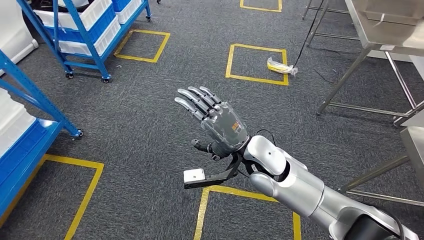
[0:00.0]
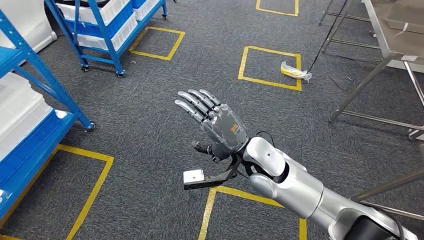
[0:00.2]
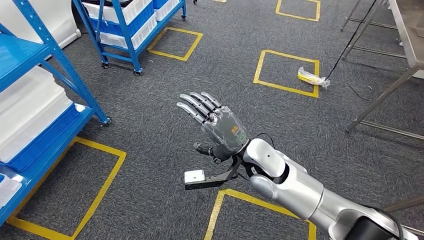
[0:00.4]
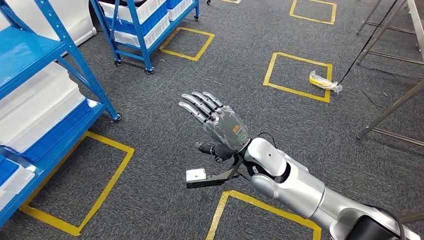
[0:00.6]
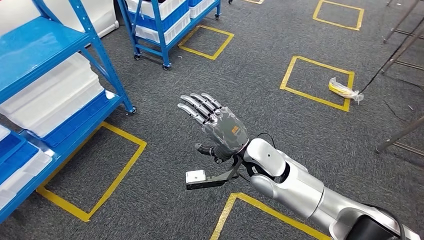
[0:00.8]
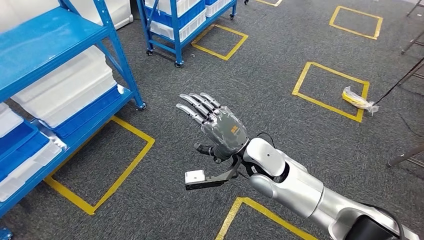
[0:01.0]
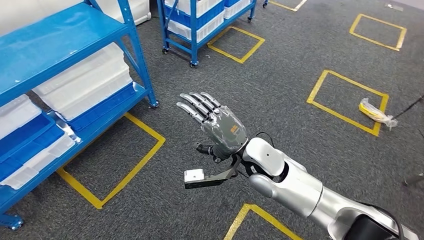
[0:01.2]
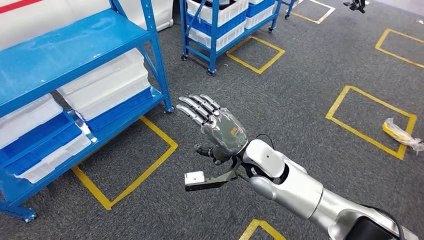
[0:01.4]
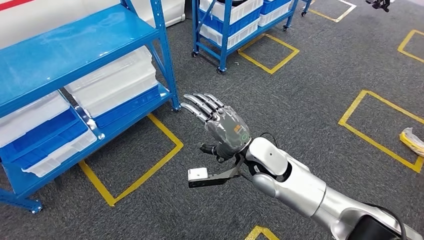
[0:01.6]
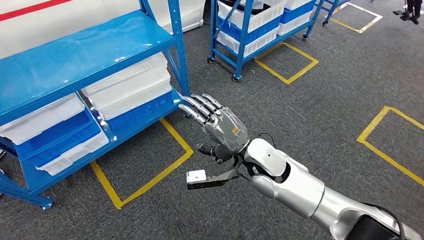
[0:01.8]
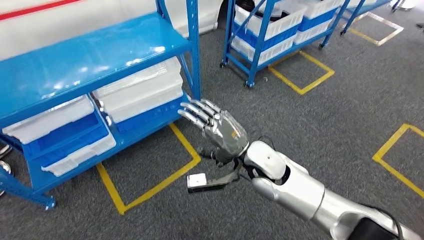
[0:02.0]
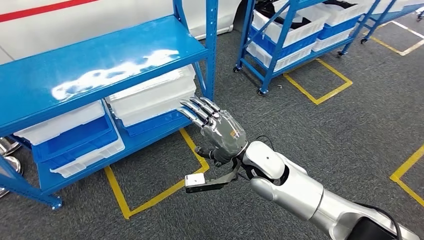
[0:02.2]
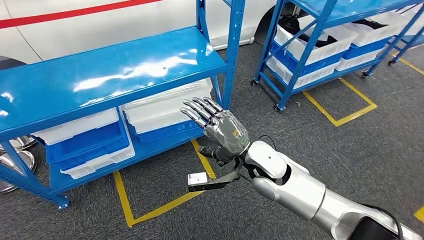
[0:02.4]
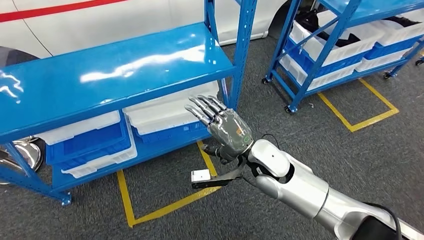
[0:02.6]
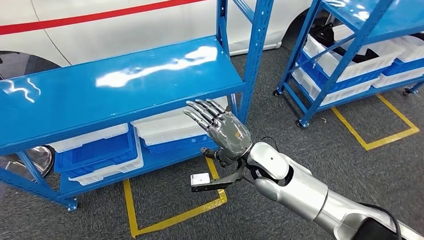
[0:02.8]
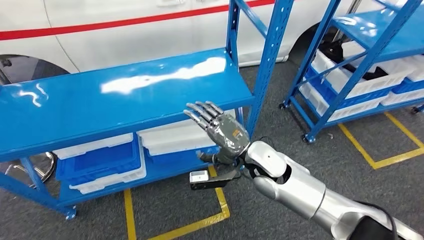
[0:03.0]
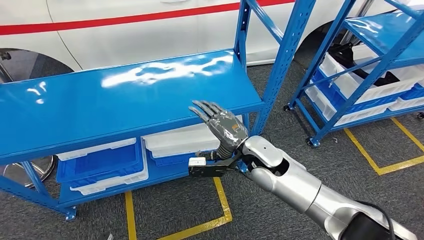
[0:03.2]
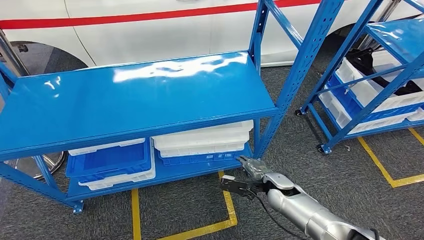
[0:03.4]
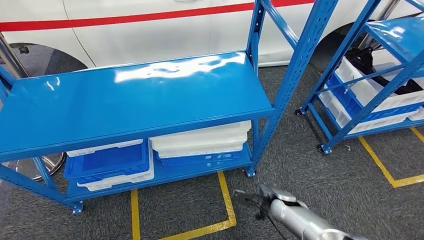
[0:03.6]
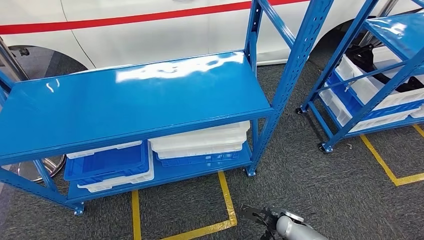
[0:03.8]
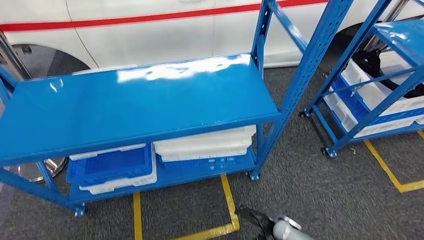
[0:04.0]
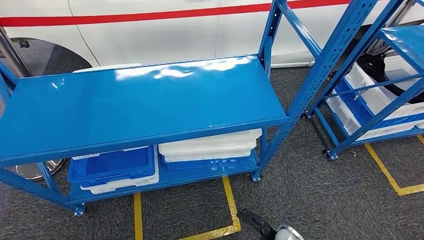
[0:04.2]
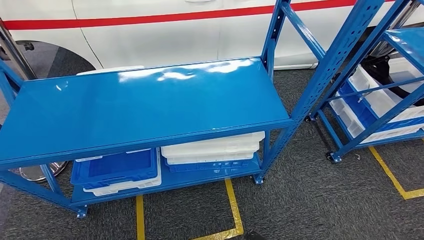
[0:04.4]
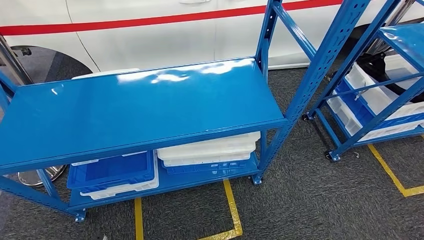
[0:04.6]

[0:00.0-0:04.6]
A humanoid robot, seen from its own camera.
Step, 0:00.0 to 0:04.6: Move to the initial position of the shelf.

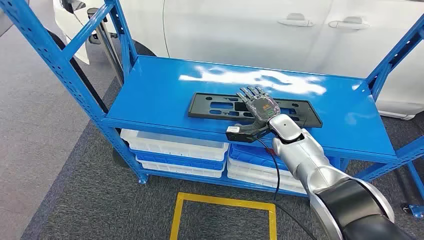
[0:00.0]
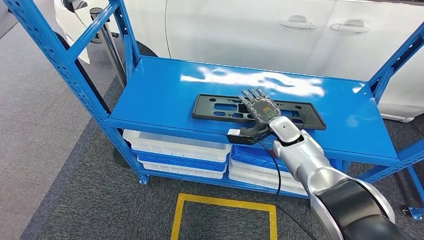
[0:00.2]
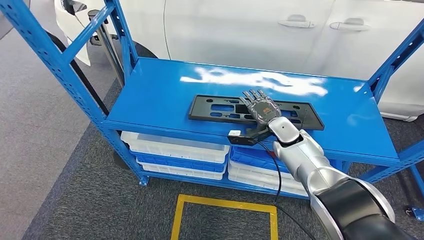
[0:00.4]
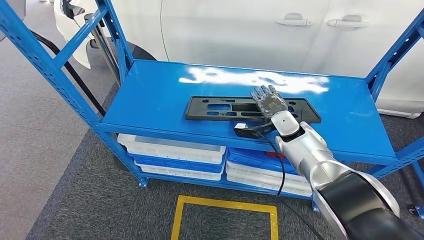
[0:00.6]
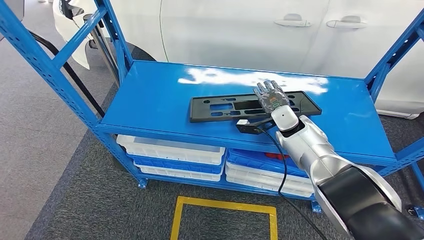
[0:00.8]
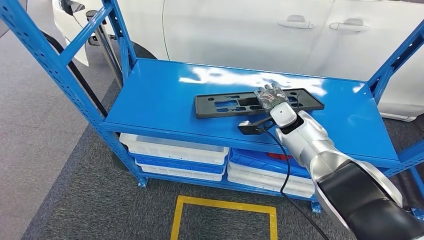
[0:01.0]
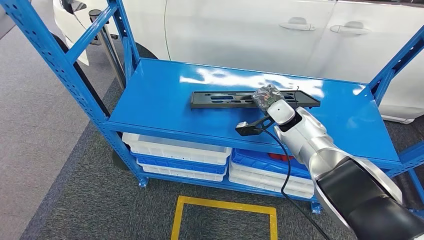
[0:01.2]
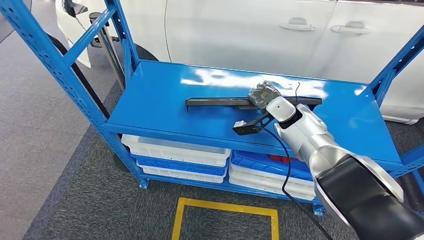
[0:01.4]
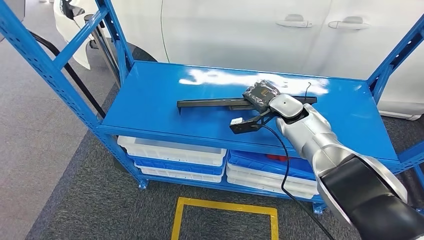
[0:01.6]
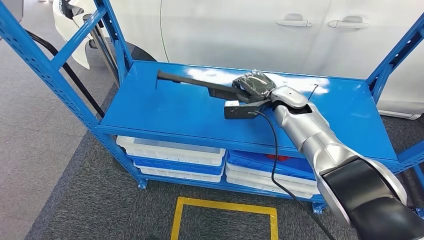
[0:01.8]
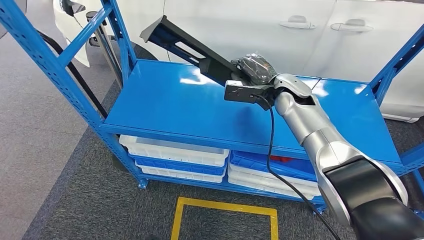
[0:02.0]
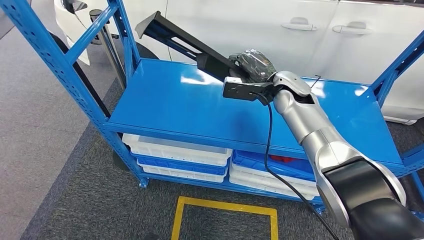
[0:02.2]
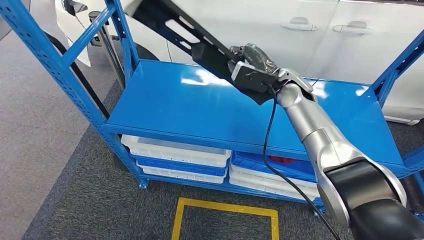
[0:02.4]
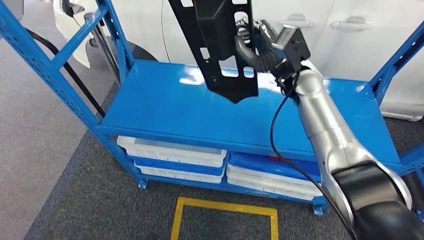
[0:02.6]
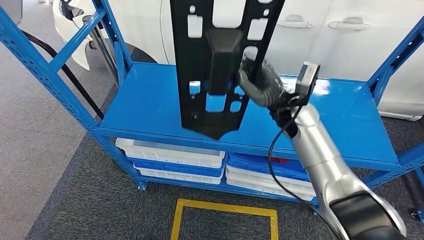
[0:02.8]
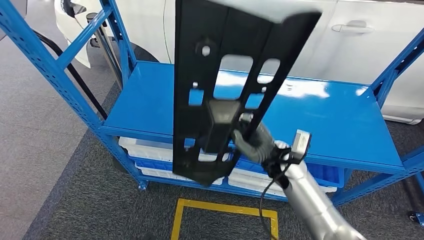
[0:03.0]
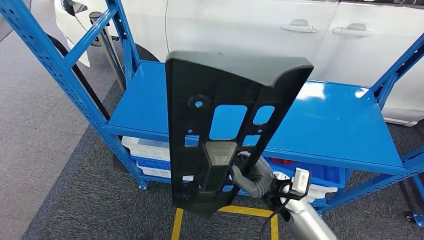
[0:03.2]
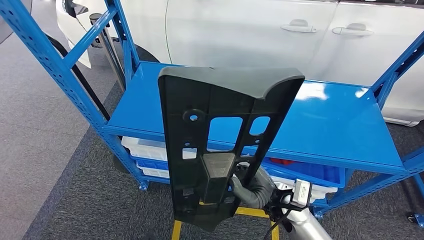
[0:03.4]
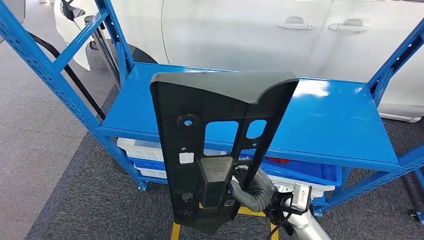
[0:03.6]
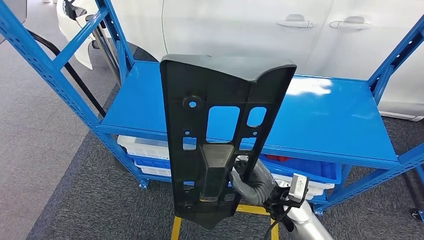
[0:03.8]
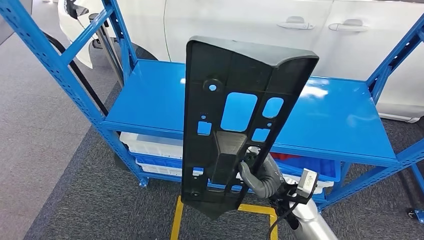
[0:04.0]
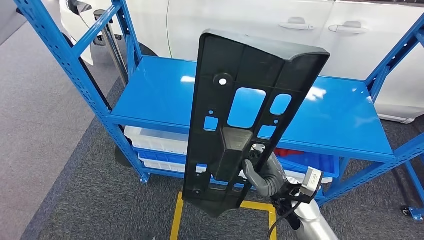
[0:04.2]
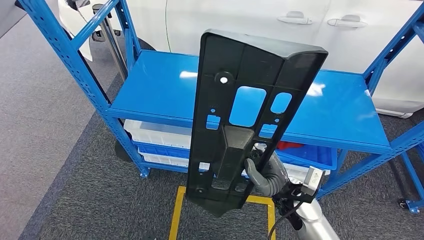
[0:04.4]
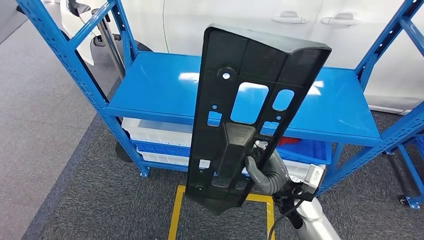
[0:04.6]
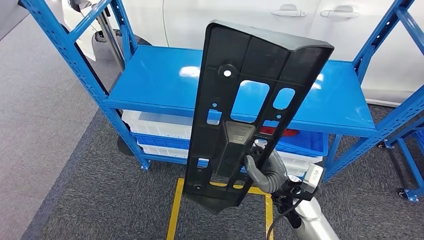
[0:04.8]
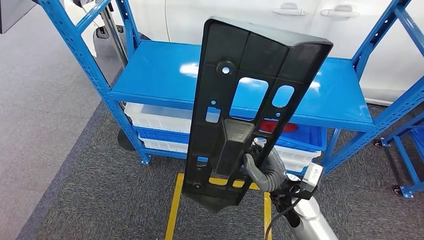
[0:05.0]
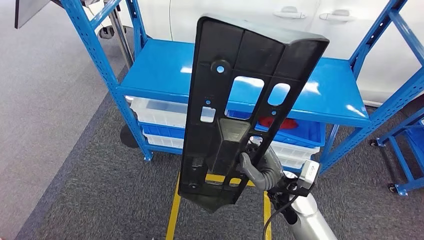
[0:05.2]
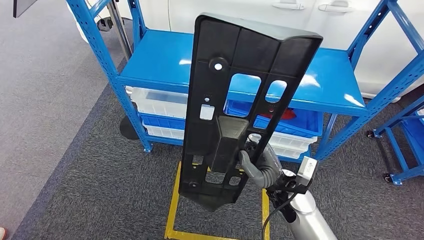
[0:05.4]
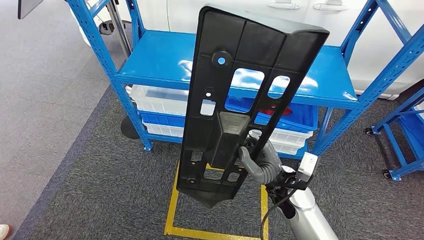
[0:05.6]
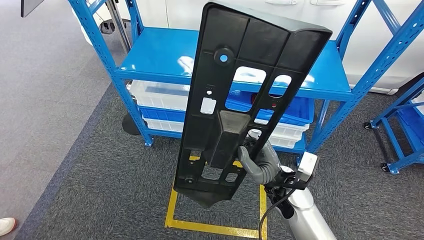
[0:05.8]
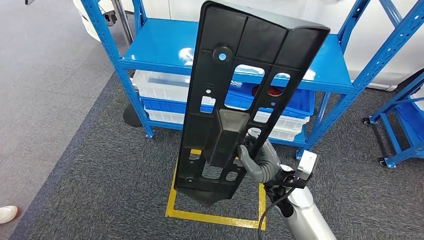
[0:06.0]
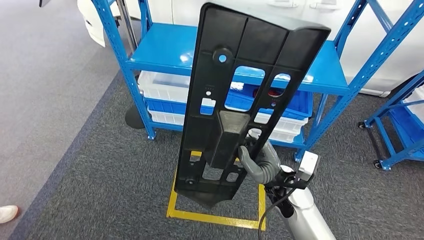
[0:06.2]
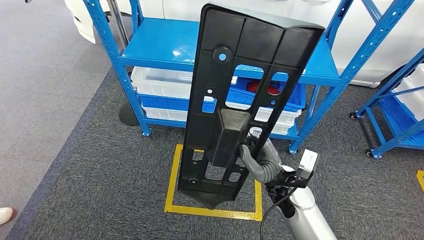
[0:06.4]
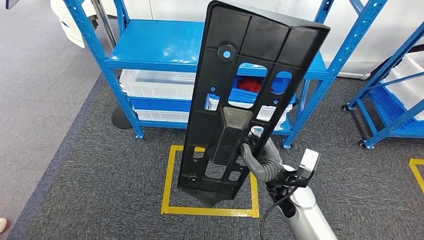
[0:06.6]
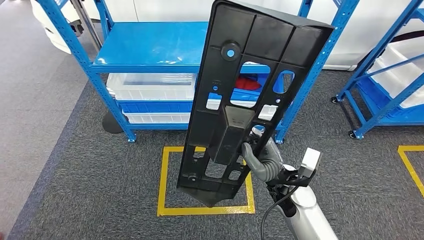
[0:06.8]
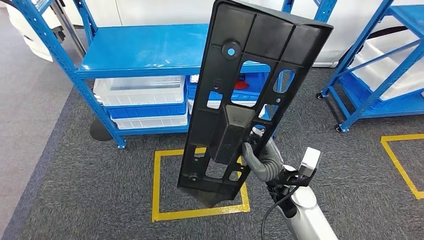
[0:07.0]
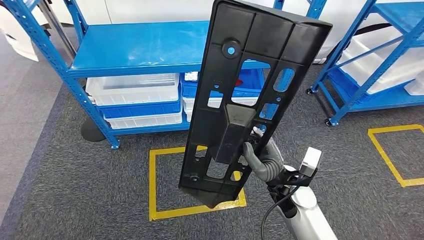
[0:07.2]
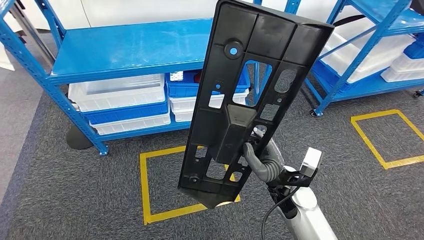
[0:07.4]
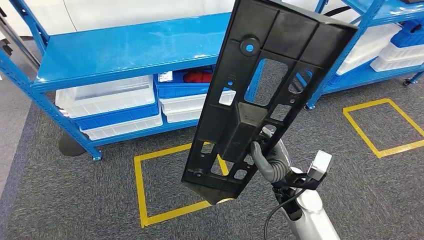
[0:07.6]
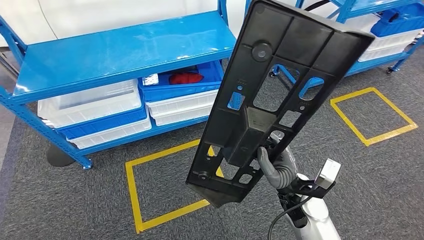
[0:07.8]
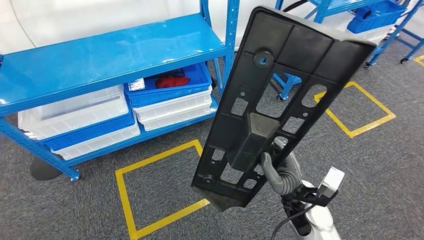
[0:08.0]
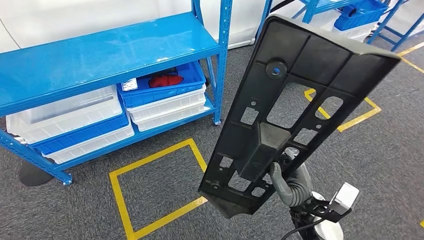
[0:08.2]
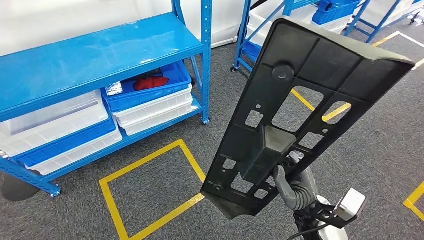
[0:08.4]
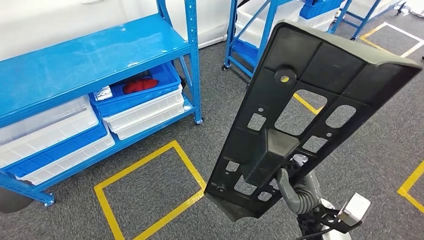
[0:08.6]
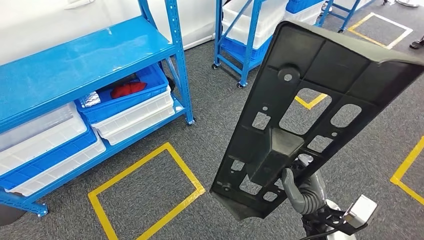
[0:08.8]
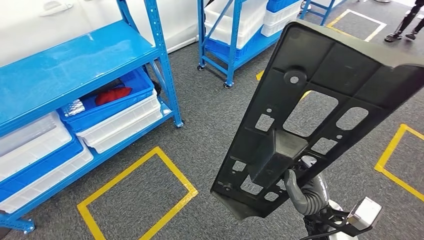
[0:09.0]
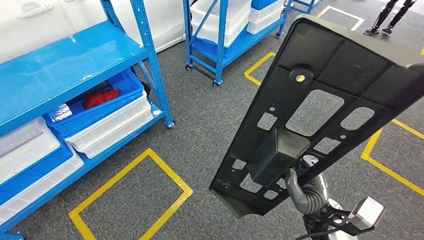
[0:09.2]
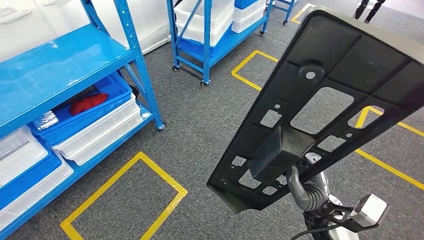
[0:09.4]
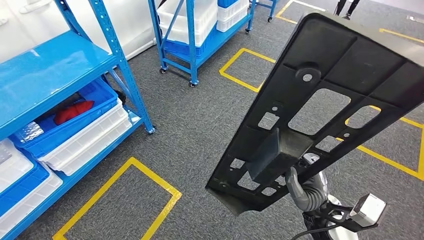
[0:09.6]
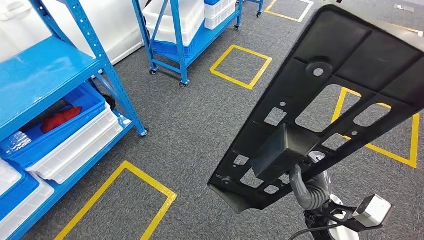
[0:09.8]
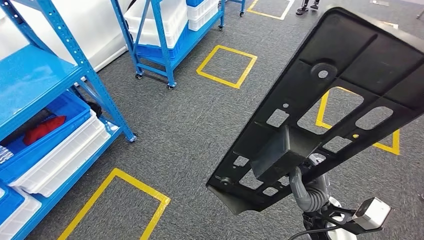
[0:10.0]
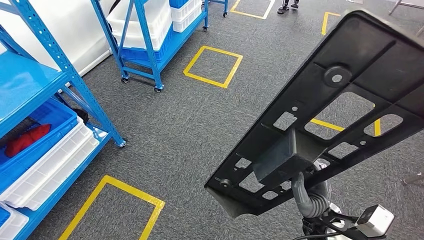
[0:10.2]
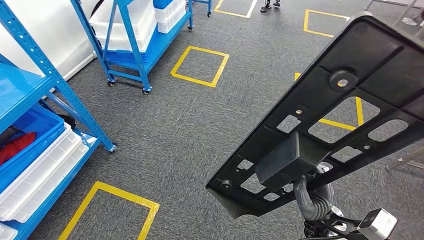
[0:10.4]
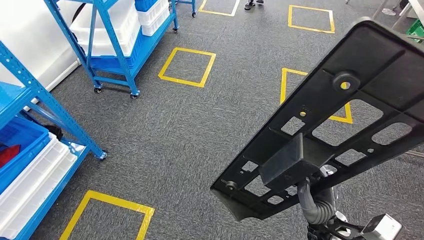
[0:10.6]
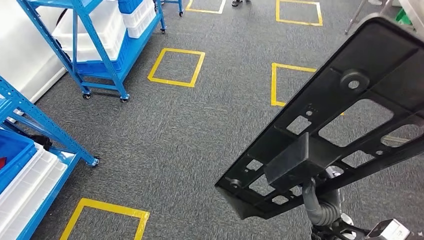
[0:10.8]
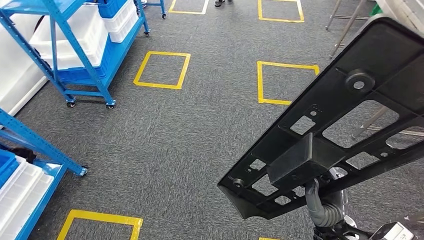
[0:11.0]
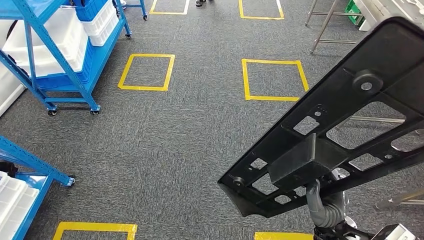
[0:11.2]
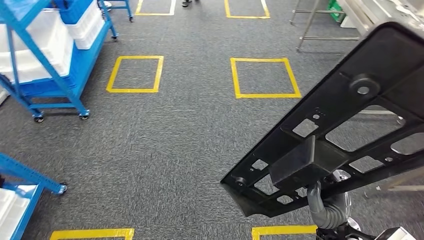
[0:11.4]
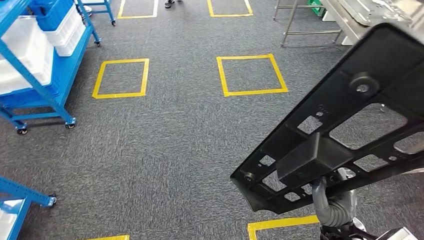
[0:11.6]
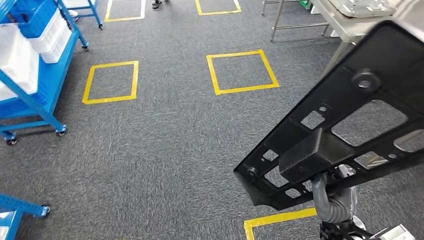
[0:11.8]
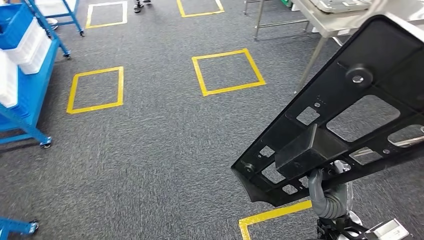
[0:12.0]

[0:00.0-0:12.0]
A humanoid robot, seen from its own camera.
Step, 0:00.0 to 0:03.4: Pick up the large material from the shelf.
